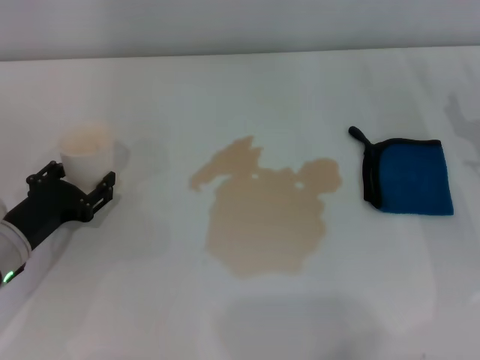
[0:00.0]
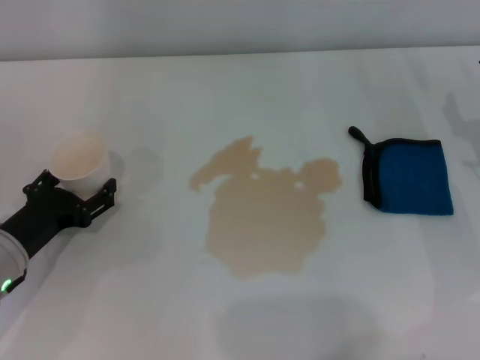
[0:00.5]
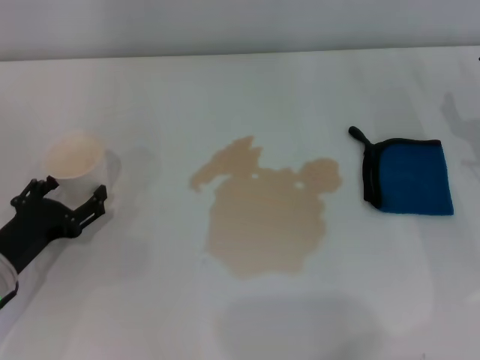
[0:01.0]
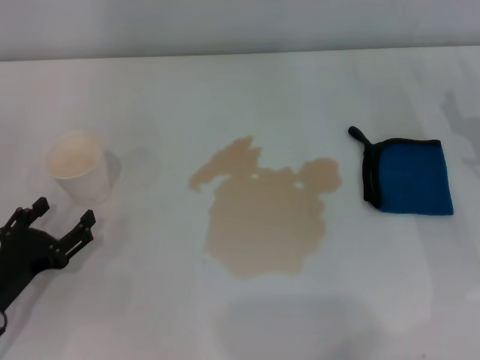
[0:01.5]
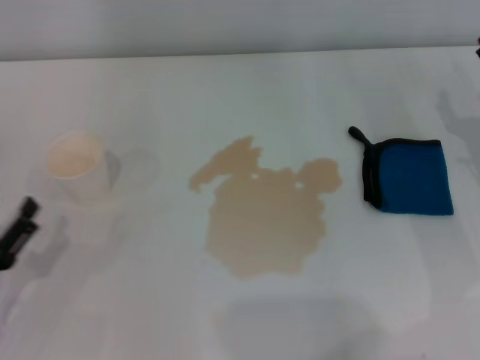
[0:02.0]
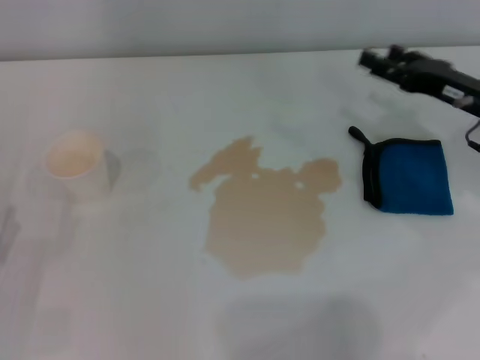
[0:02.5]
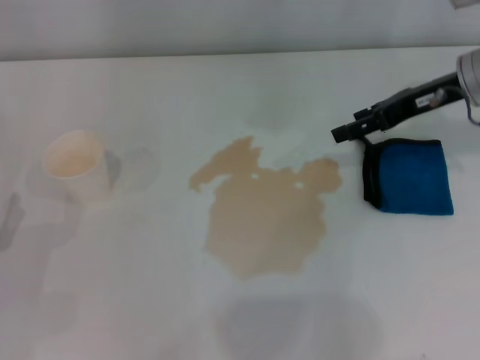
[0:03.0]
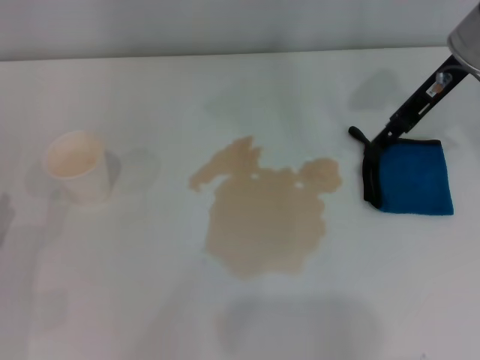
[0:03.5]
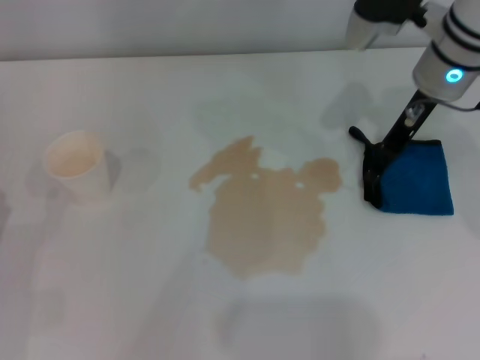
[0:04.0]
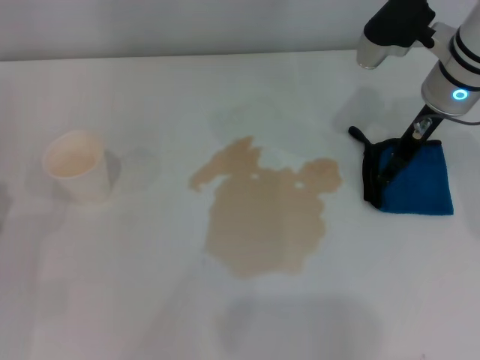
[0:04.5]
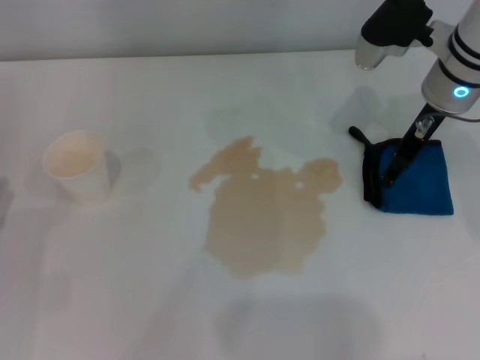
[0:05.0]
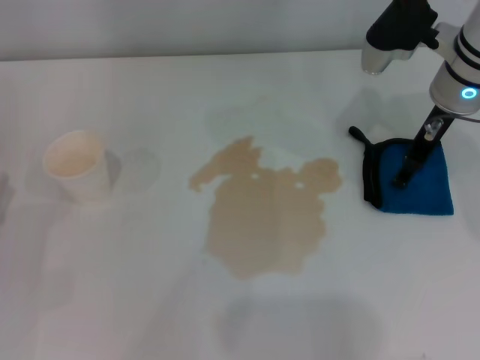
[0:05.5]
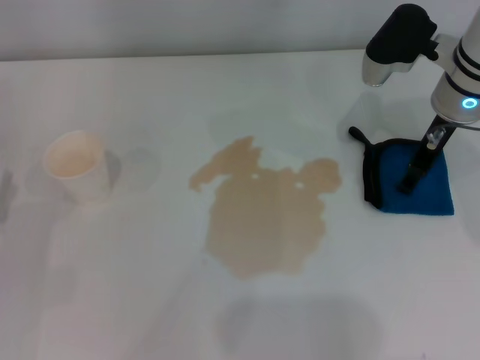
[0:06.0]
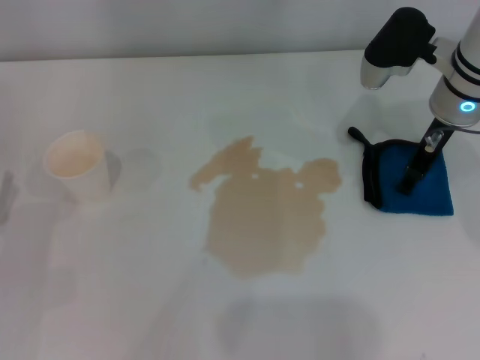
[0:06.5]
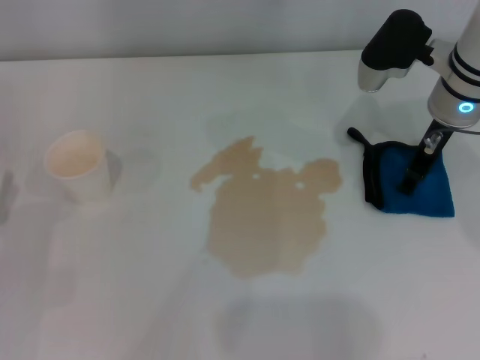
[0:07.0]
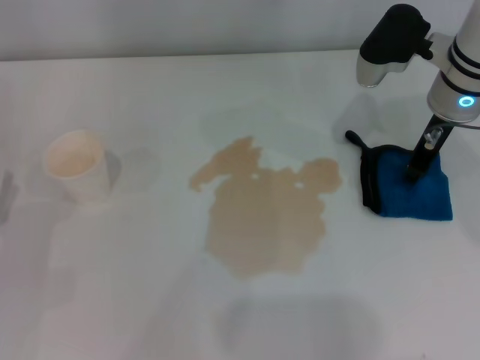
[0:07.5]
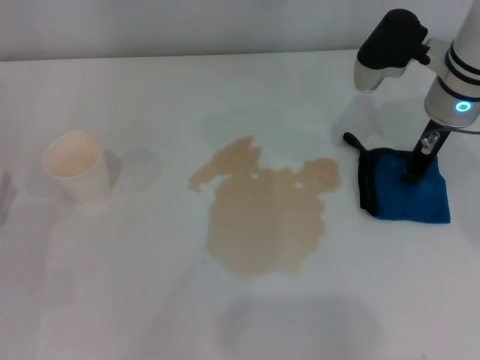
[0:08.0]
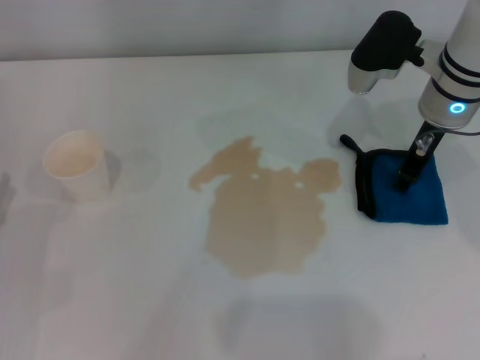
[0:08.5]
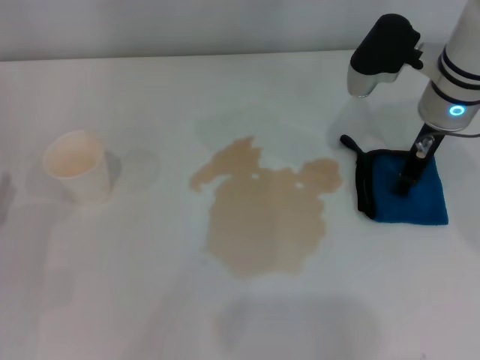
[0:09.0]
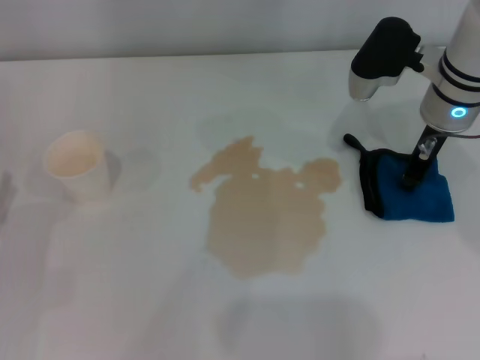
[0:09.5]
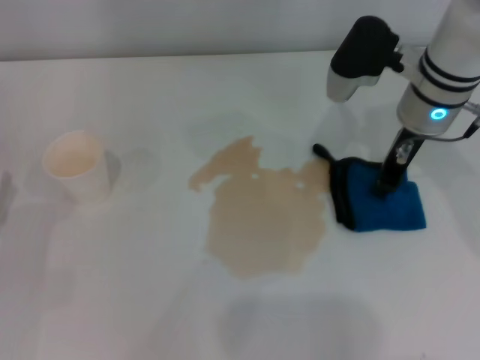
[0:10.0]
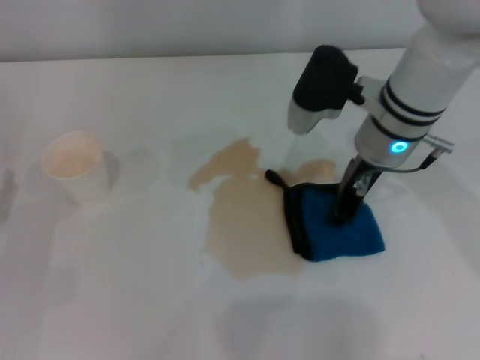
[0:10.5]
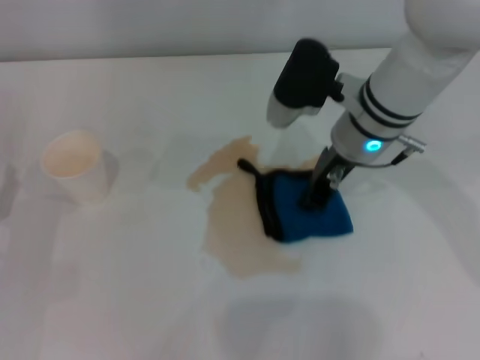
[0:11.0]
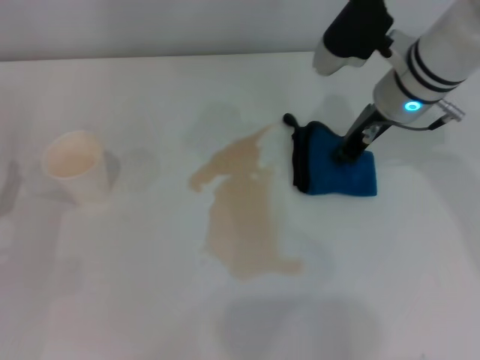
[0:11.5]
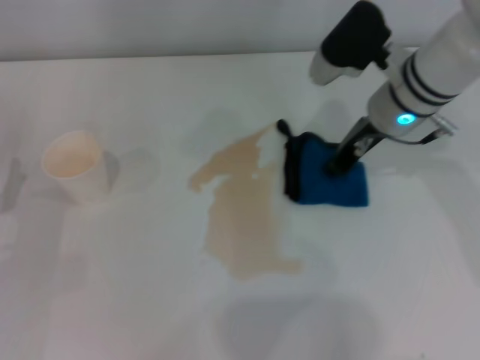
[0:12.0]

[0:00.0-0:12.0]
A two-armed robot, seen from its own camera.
Step, 0:01.0 to 0:09.5: Grasp the rag with the right gripper.
0:00.0 to 0:02.0: The left gripper heads backward, covering approximately 10 cm, and opens its fingers.
0:02.0 to 0:04.0: The right gripper heads forward, upward and to the left, covering about 20 cm.
0:04.0 to 0:06.0: The grippers stay close to where they were, moving slightly.
0:06.0 to 0:08.0: The right gripper closes its fingers.
0:08.0 to 0:10.0: The grippers make only small movements.

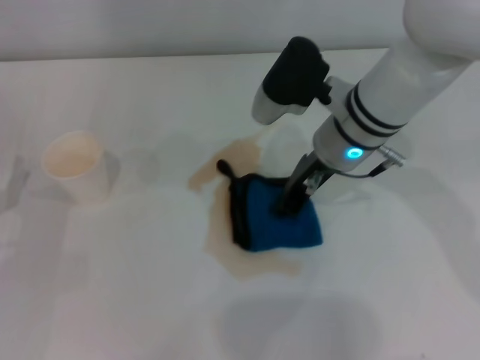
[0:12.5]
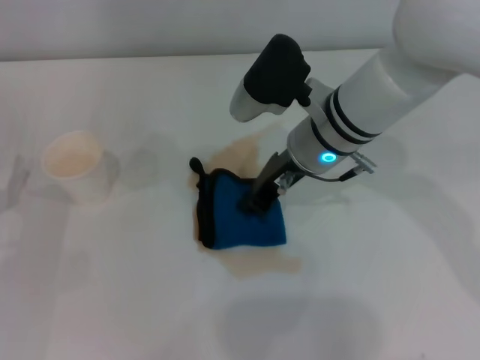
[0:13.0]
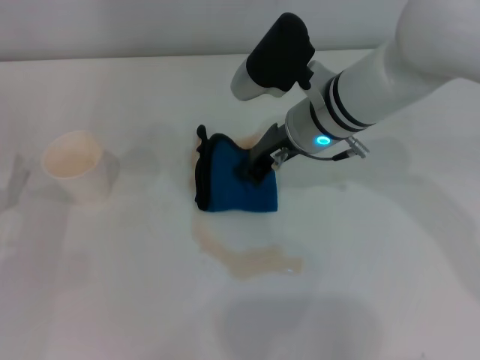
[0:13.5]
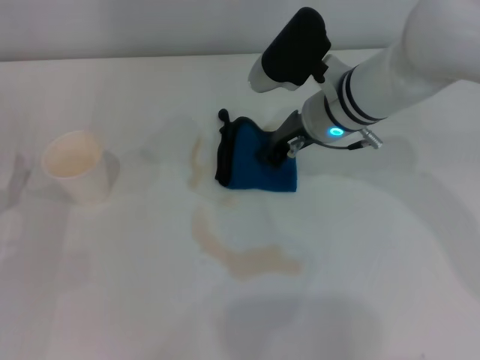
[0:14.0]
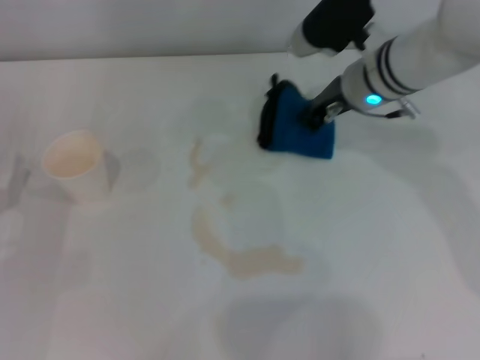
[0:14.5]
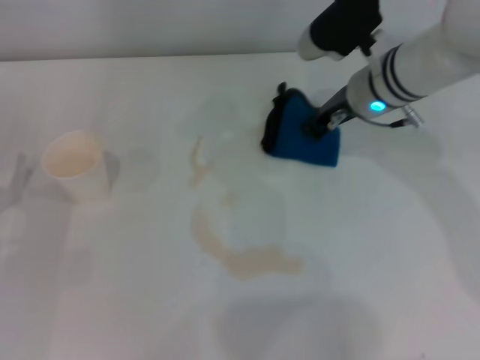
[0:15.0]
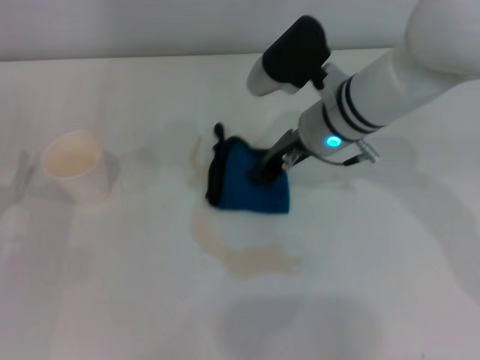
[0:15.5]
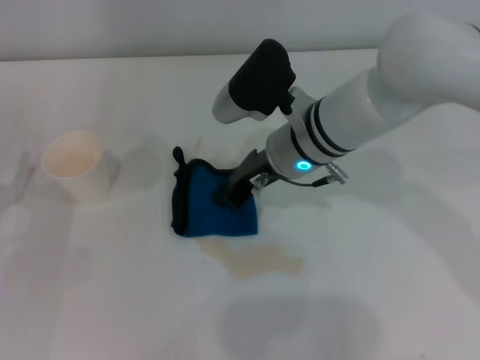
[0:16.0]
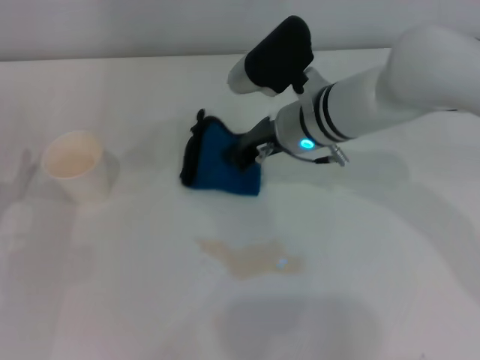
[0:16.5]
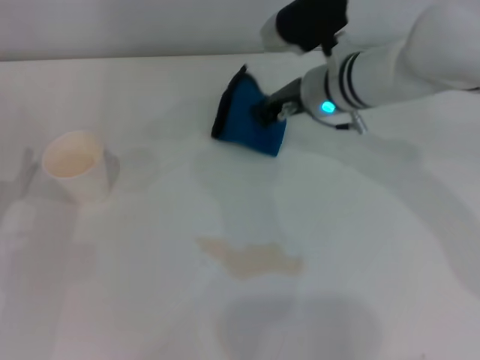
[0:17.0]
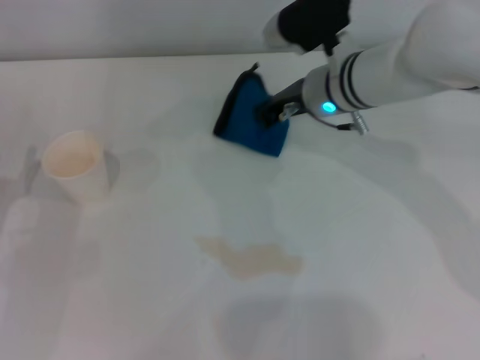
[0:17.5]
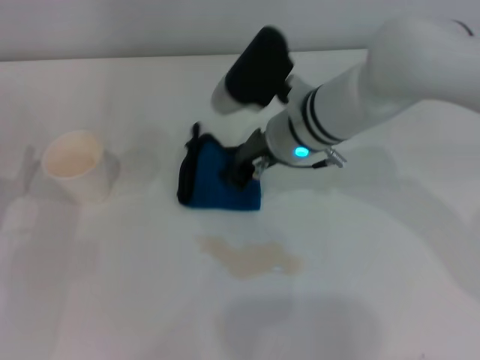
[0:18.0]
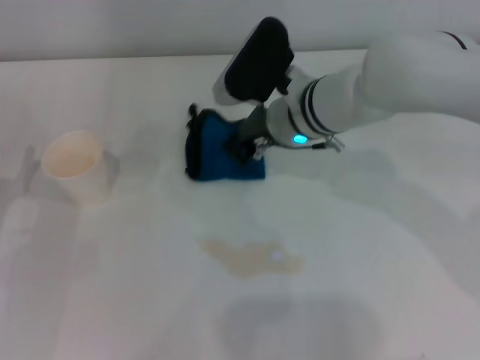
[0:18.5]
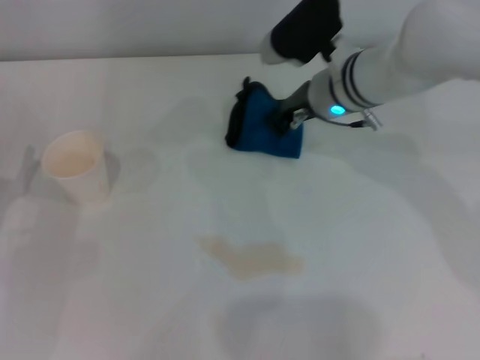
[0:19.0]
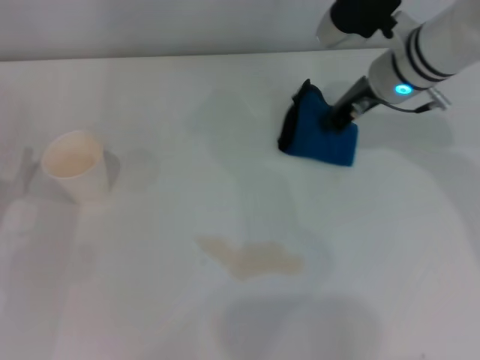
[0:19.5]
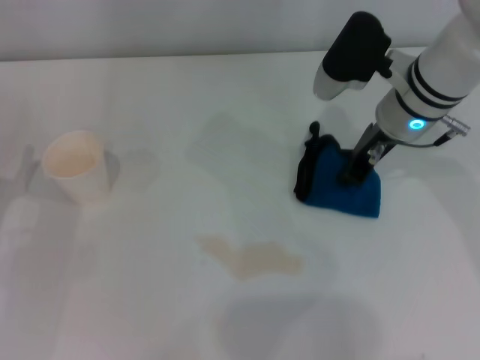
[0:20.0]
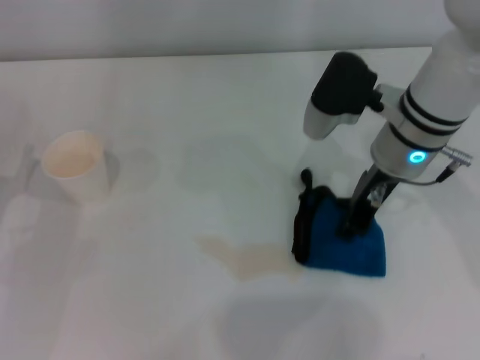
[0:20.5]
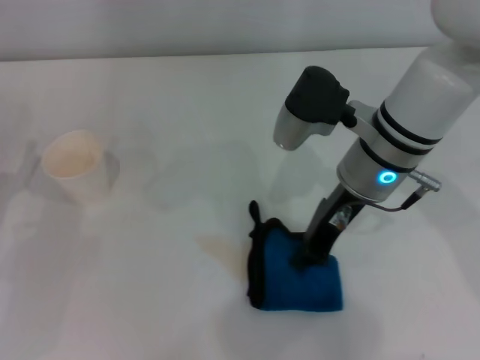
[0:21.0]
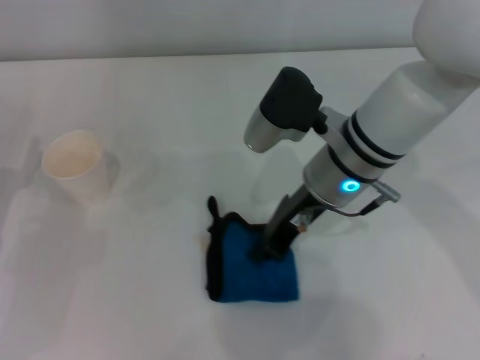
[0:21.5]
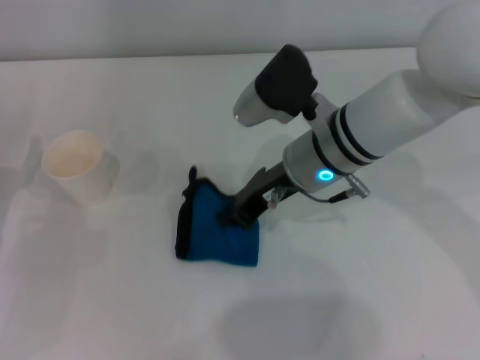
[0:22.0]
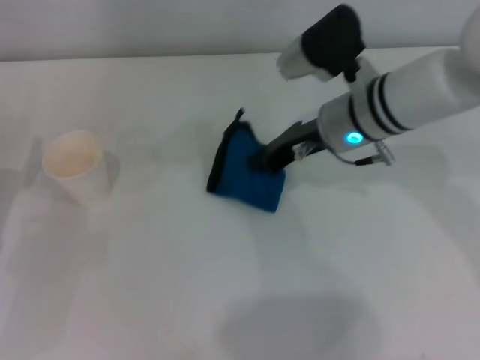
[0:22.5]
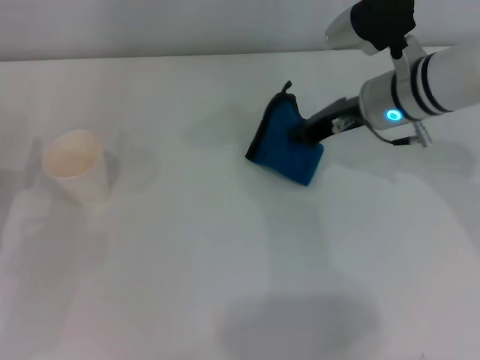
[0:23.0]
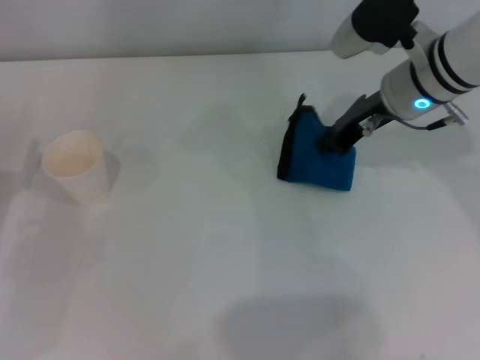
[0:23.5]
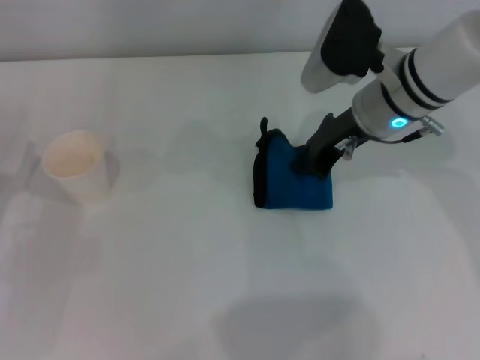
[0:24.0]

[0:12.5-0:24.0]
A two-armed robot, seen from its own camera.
Step, 0:12.5 to 0:23.5: Wipe the stains off the table with the right gripper.
0:12.5 to 0:14.5: The right gripper goes about 5 cm forward.
0:14.5 to 0:16.5: The right gripper goes approximately 5 cm to the left.
0:18.5 to 0:20.0: The right gripper travels to the right by roughly 10 cm.
0:20.0 to 0:22.0: The right gripper moves to the left, some 10 cm.
0:22.0 to 0:24.0: The right gripper travels to the right by roughly 5 cm.

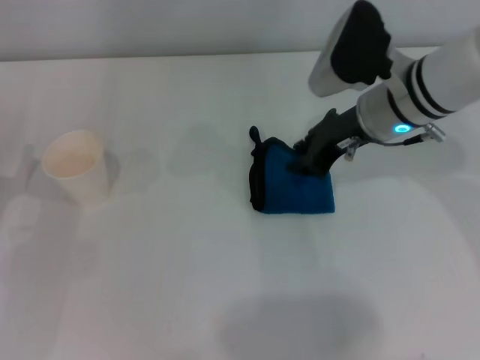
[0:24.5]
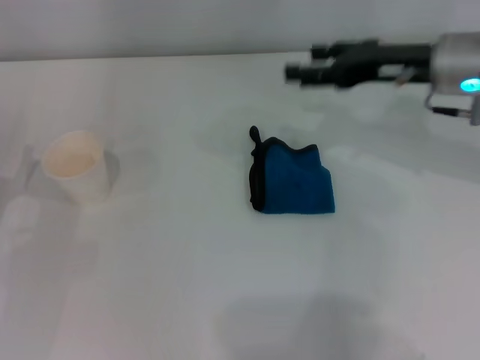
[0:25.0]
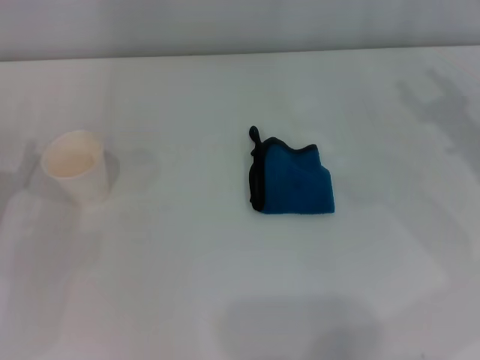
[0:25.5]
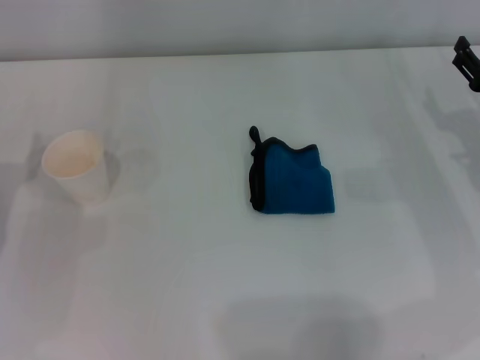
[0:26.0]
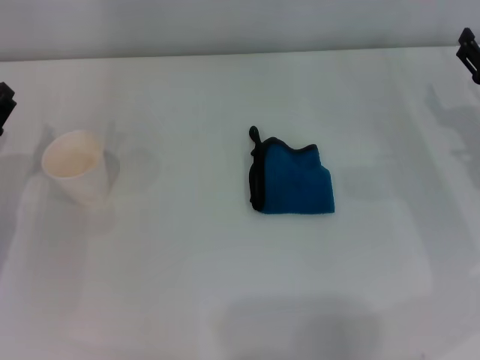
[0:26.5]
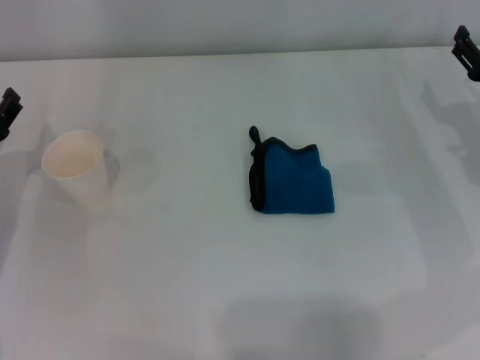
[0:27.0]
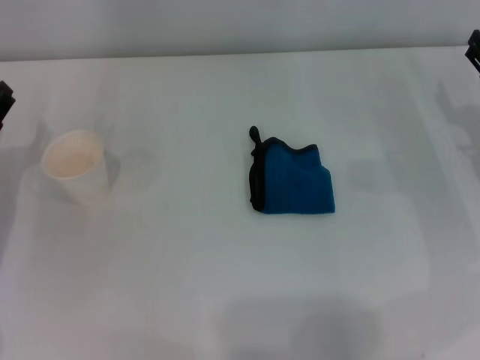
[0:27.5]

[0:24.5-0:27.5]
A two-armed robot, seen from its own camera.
0:24.5 to 0:26.0: The right gripper shifts about 20 cm to the right, downward and backward, and opens up.
